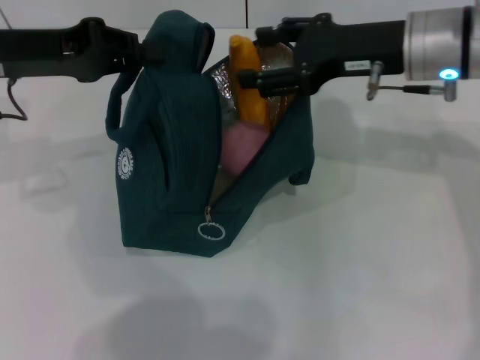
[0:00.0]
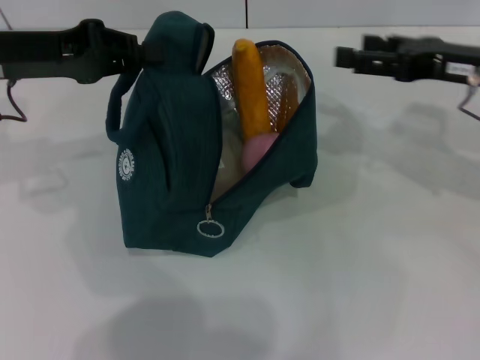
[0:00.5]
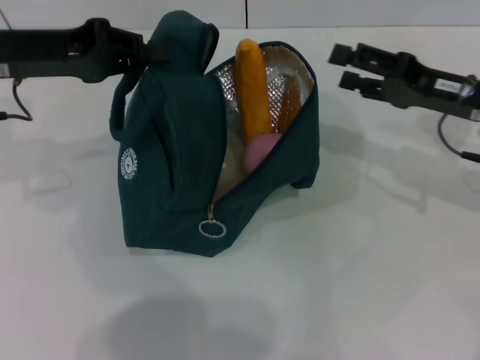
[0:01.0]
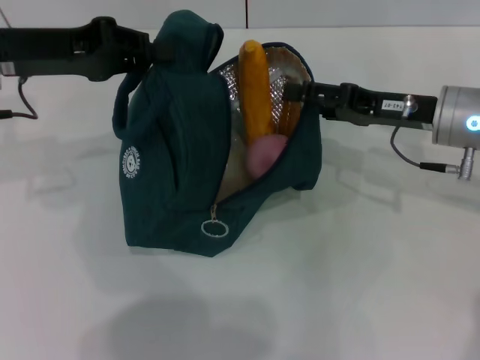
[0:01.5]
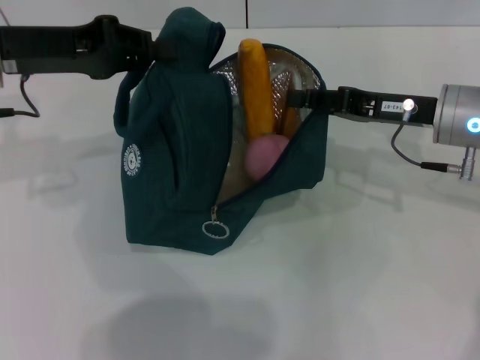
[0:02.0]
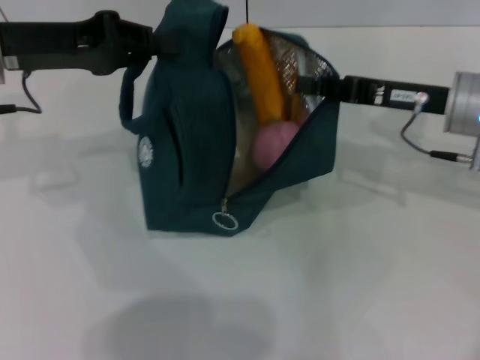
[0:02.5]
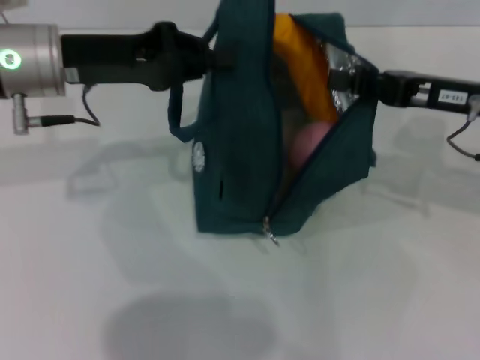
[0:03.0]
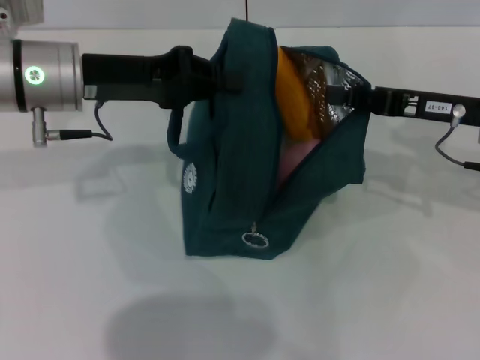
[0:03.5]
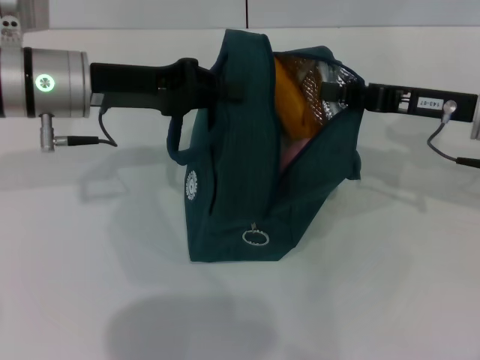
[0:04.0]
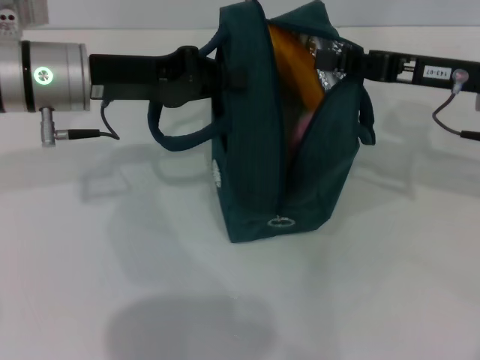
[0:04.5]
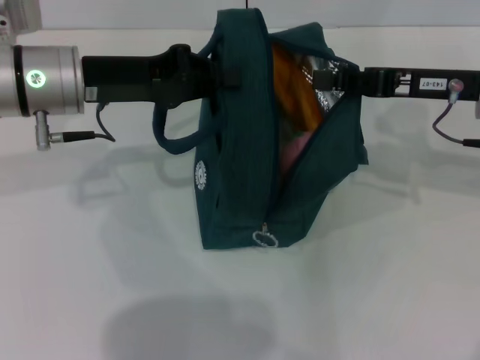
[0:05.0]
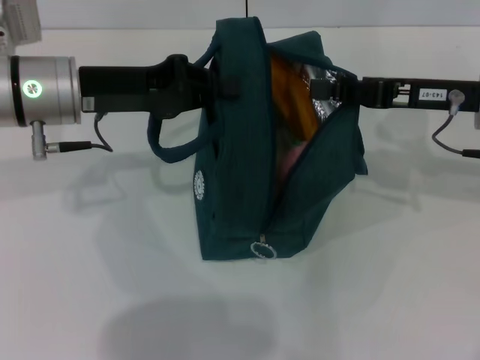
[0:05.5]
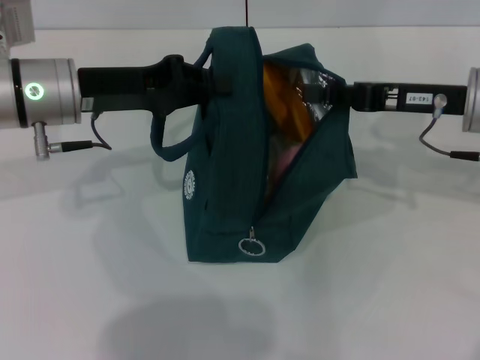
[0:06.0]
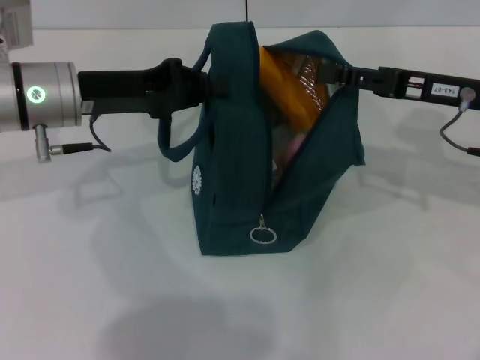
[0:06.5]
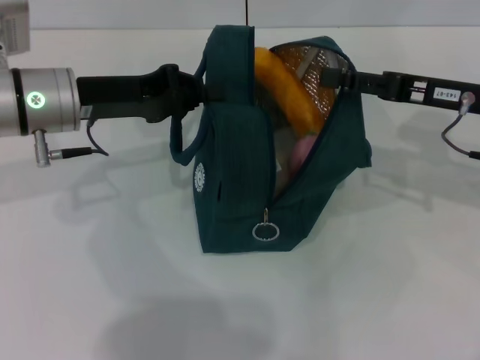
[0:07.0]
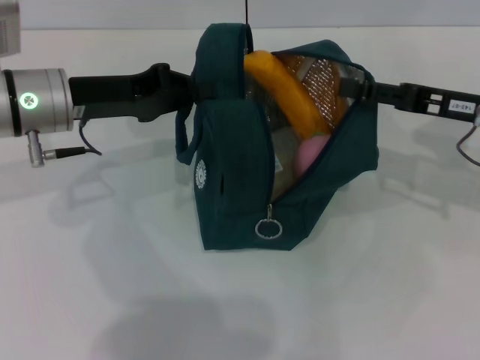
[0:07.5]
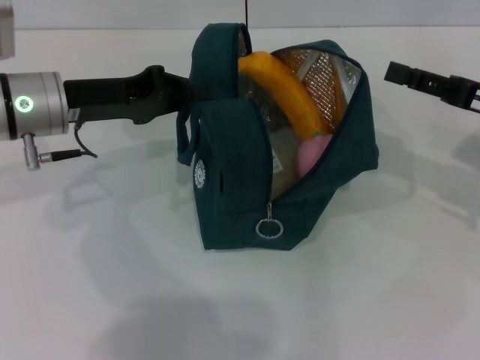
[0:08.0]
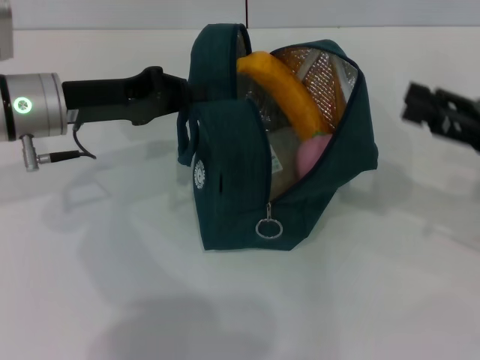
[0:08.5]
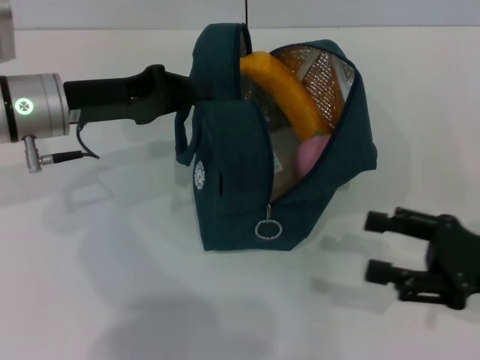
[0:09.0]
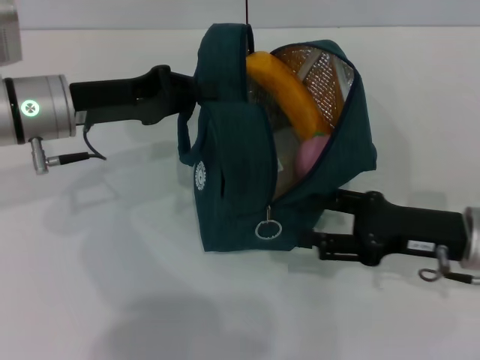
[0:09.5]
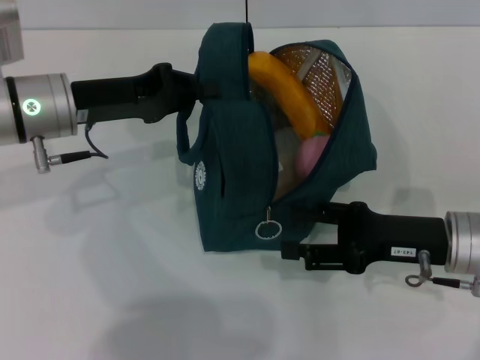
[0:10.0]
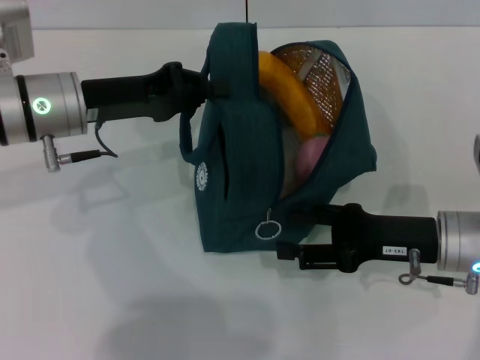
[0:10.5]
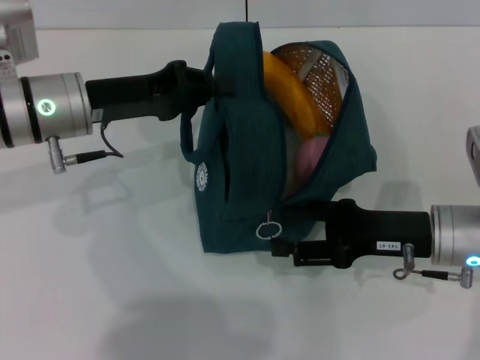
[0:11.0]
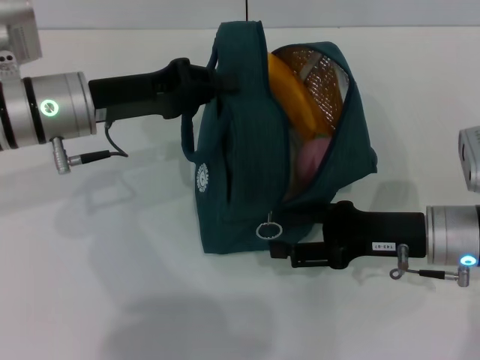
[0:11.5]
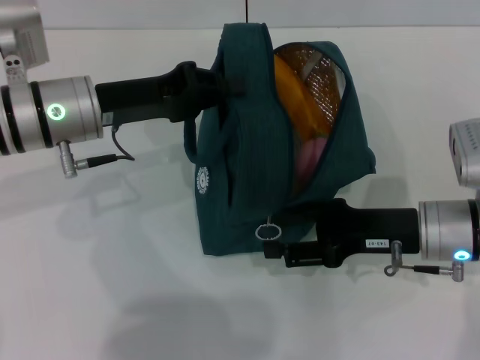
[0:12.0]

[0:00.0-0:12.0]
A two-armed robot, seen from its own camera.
Step, 0:00.5 to 0:07.5: Hold the lunch bag with your right hand.
0:00.0 to 0:02.0: The right gripper moves downward, about 5 cm.
0:02.0 to 0:04.0: The left gripper is displaced to the right by about 5 cm. The right gripper closes up.
0:04.0 to 0:06.0: The grippers stay close to where they were, moving slightly.
0:06.0 to 0:08.0: The right gripper shifts approximately 10 cm to the right, and opens its fingers.
0:08.0 to 0:10.0: The right gripper travels to the left, downward and backward by some 10 cm.
0:10.0 to 0:12.0: The grippers make only small movements.

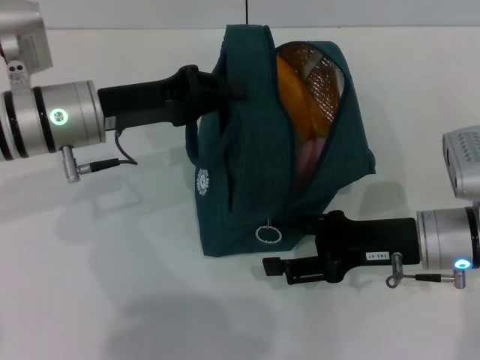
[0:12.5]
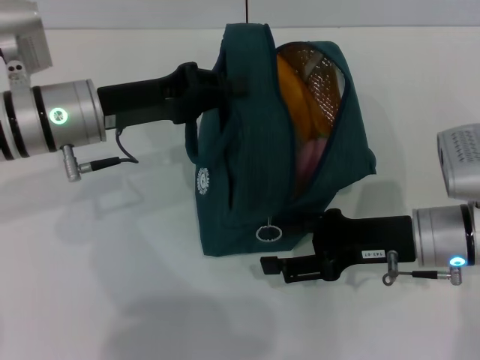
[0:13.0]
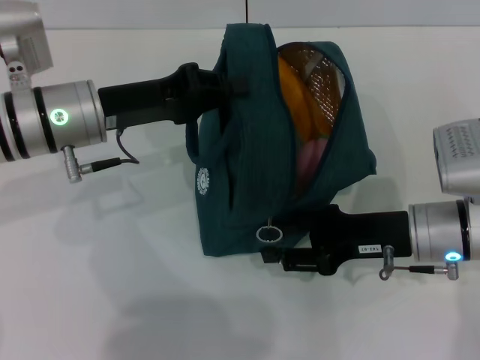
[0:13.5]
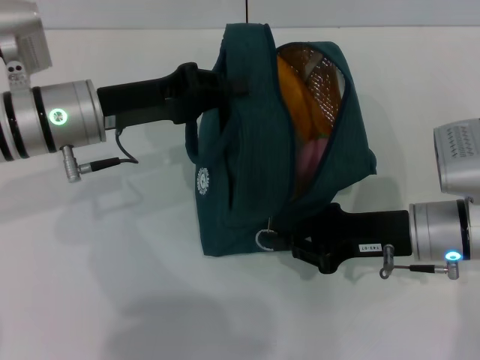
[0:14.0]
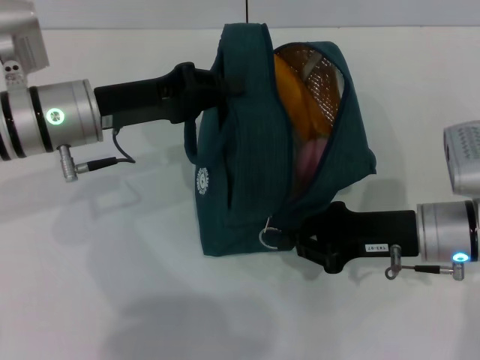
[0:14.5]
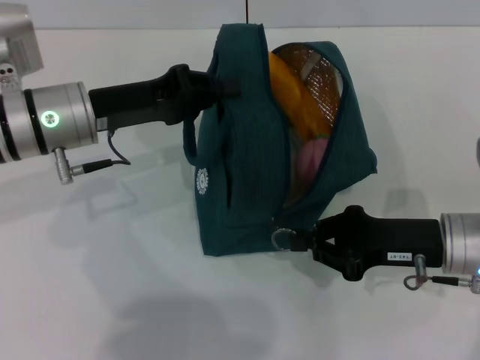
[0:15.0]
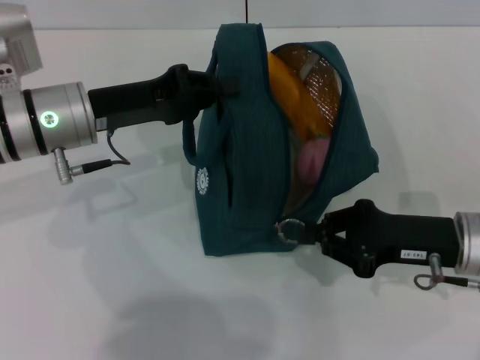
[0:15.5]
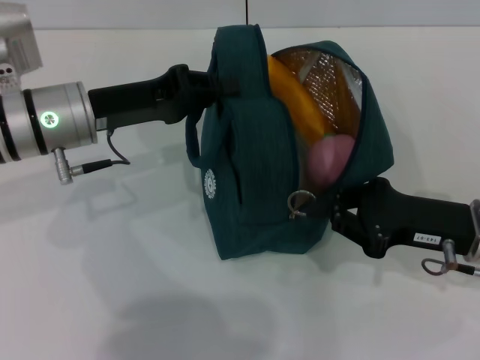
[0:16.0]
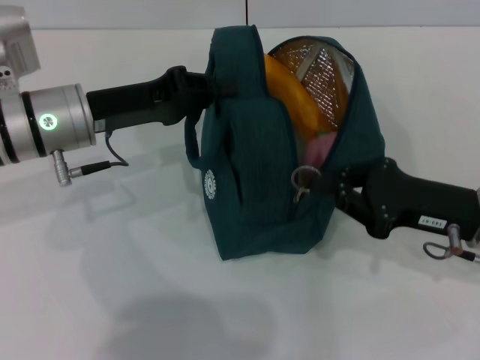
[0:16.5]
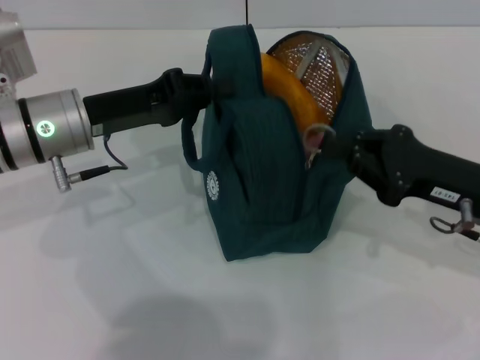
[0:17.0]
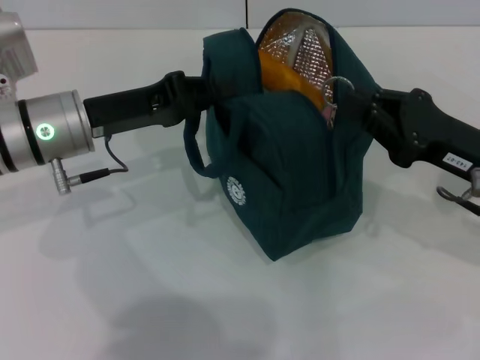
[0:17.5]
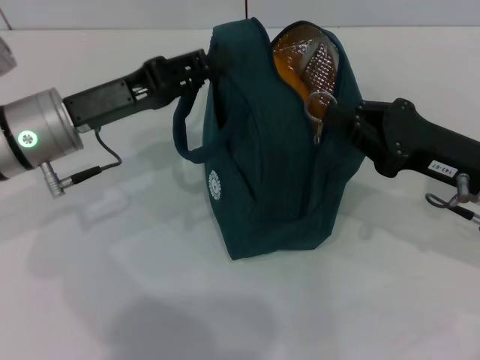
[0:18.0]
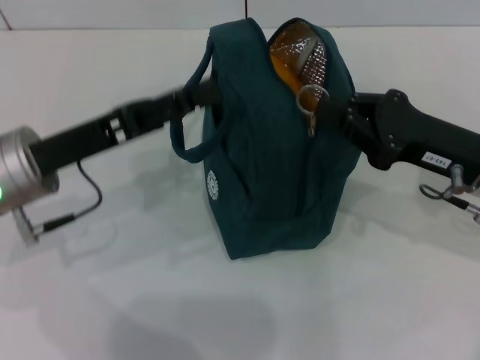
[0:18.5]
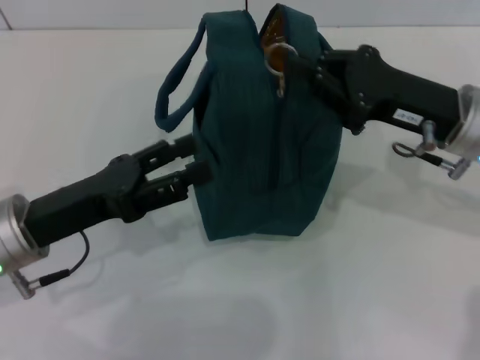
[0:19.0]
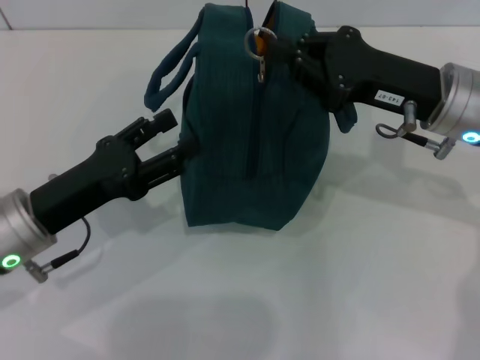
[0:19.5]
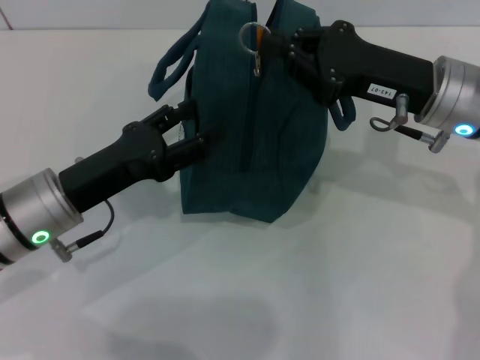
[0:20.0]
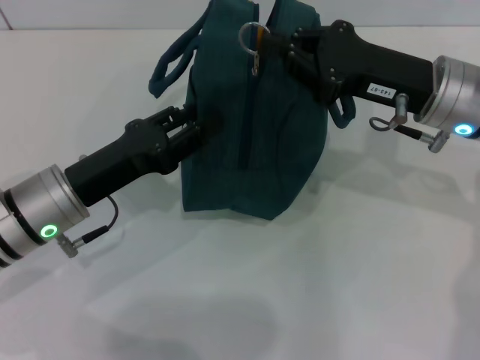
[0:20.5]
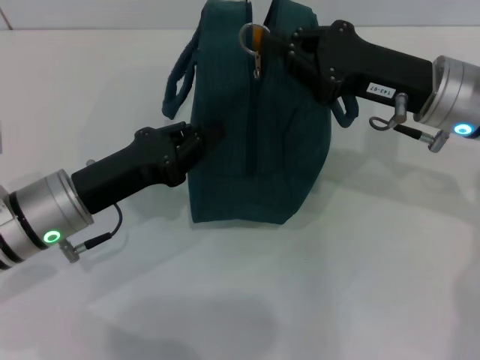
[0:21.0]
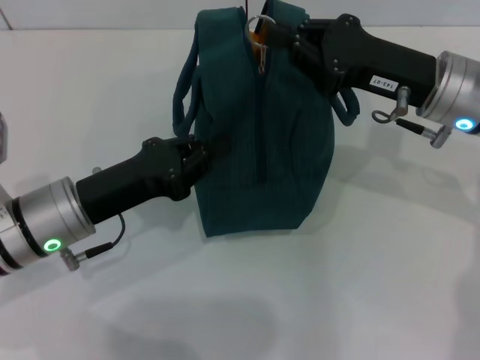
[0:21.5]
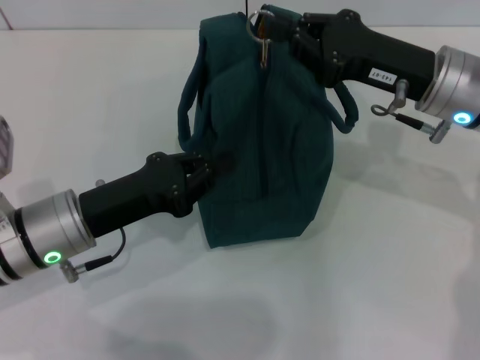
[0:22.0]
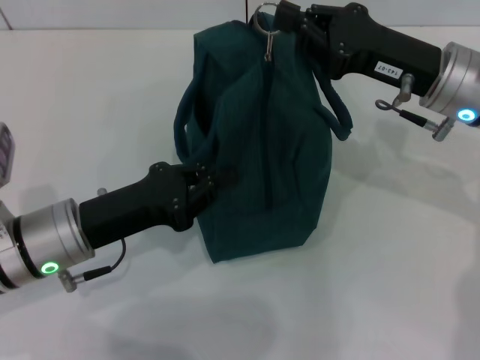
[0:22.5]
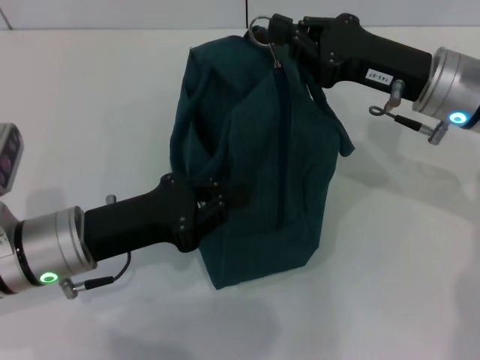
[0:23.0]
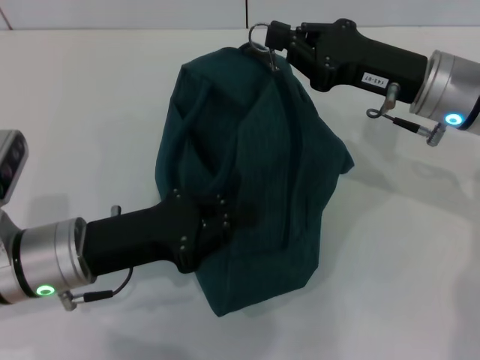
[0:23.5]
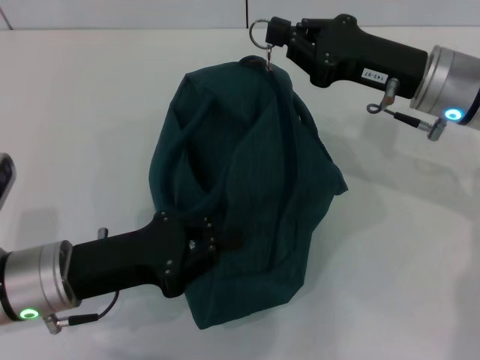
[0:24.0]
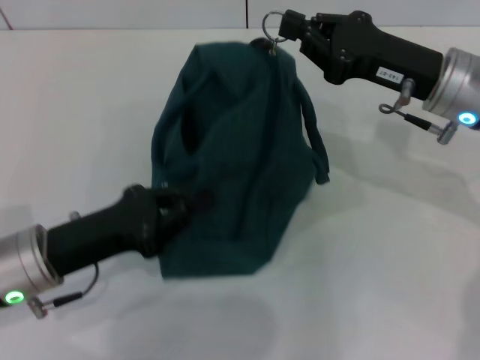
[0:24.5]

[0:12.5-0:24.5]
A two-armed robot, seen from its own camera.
Step, 0:12.5 to 0:18.0: Hold the lunch bag with your left hand.
0:12.5 to 0:14.5: The right gripper closes up.
0:16.5 to 0:18.5: The left gripper is displaced backward by about 5 cm, and opens.
0:18.5 to 0:20.5: The right gripper changes place by approximately 10 cm. Meanwhile the left gripper moves downward, roughly 5 cm.
0:20.5 to 0:22.5: The left gripper closes.
0:22.5 to 0:24.5: The grippers stay close to where they were, moving slightly.

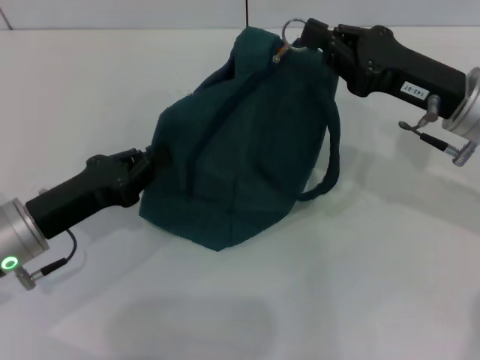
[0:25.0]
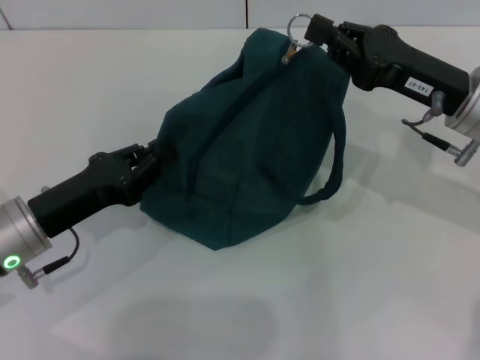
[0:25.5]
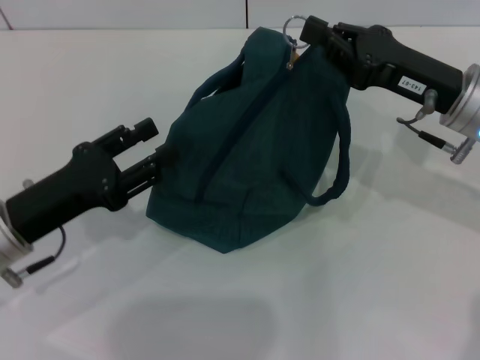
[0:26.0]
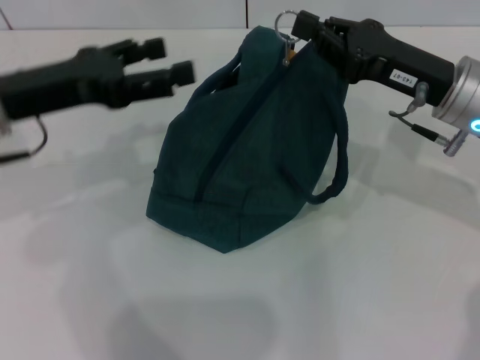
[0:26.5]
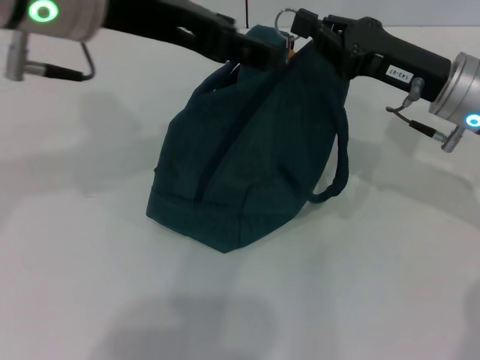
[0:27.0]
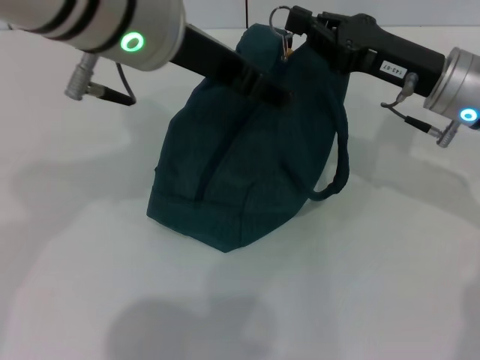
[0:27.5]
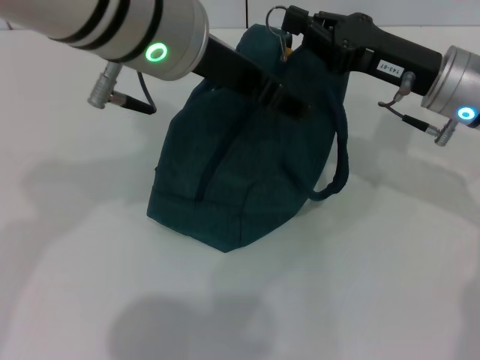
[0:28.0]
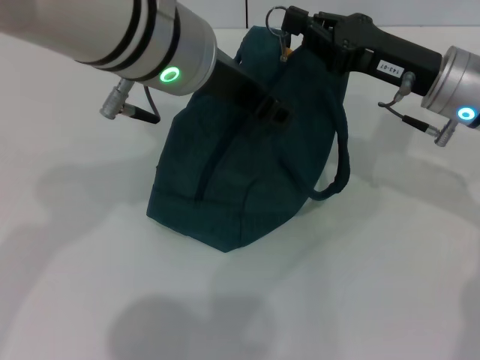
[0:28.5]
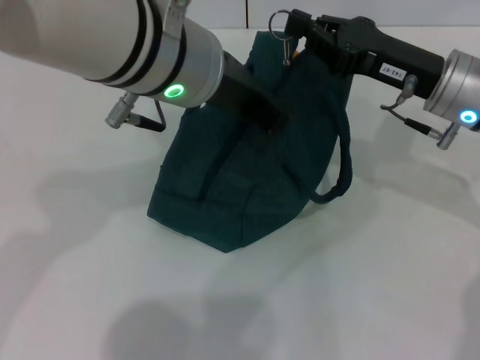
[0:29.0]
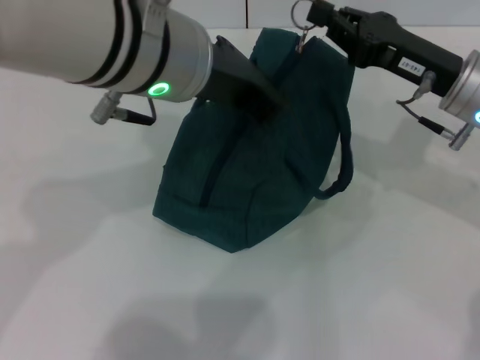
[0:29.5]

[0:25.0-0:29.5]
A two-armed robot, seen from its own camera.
0:25.0 to 0:27.0: The left gripper travels upward and to the right by about 25 cm, and opens.
0:27.0 to 0:29.5: The left gripper is displaced to the right by roughly 5 cm, and closes its fingers.
